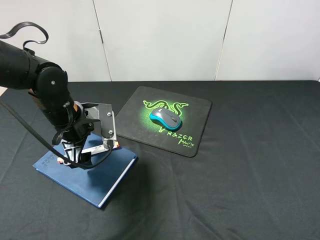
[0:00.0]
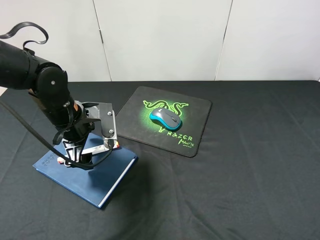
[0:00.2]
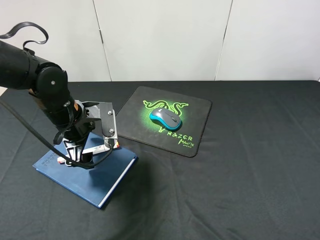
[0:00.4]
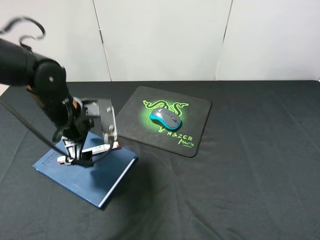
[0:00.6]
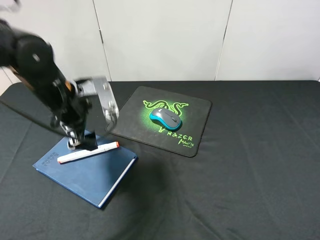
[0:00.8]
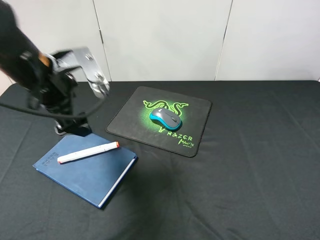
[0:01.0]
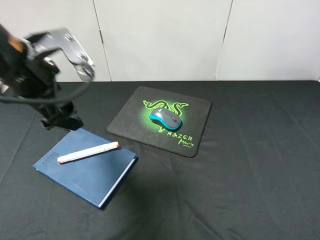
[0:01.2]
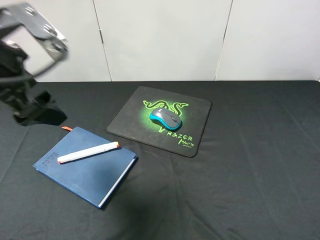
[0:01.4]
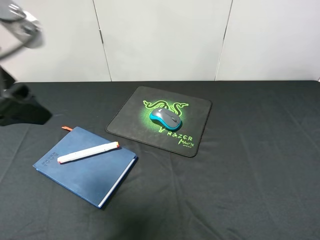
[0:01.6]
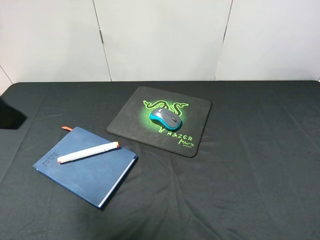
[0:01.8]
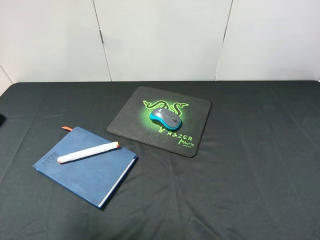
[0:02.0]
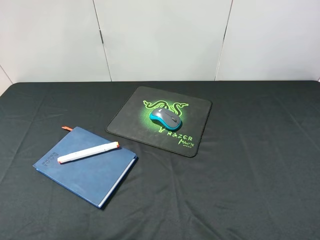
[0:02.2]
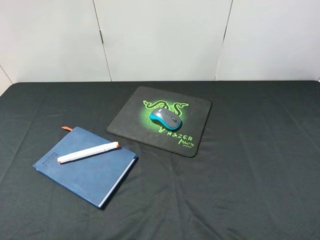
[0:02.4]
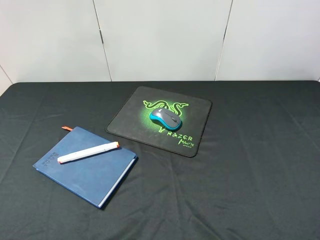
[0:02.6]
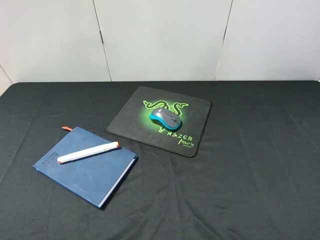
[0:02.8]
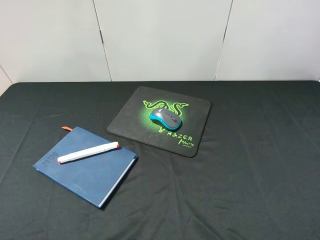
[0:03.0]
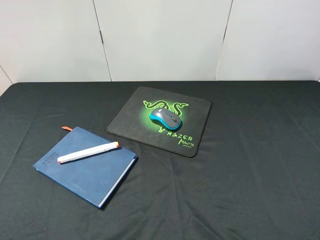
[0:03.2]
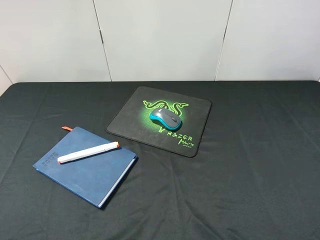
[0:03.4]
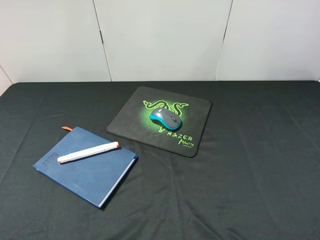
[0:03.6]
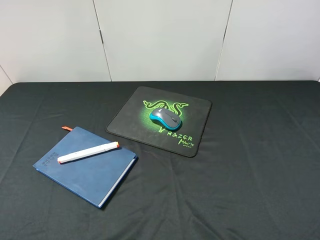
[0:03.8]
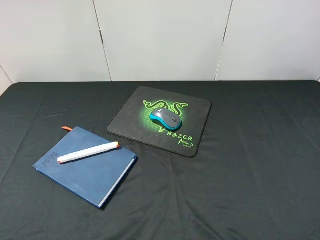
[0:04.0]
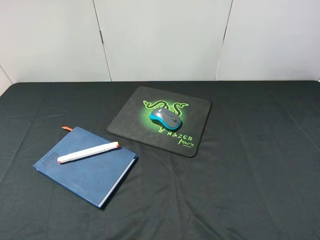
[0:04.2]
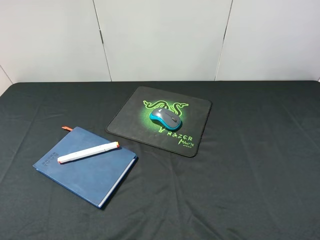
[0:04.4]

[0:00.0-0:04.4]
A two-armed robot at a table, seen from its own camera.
0:00.0 to 0:01.4: The left gripper is displaced upward and backward by roughly 20 cm.
0:01.4 to 0:03.0: The left gripper travels backward and to the left by about 20 cm.
